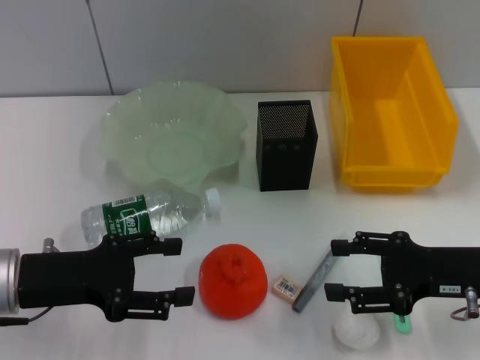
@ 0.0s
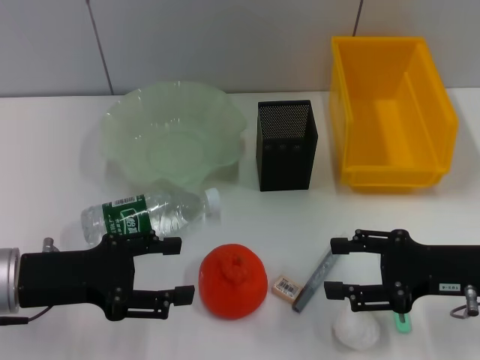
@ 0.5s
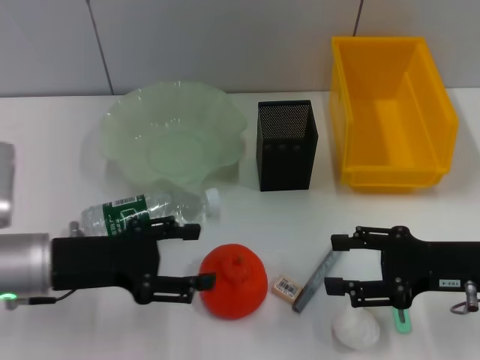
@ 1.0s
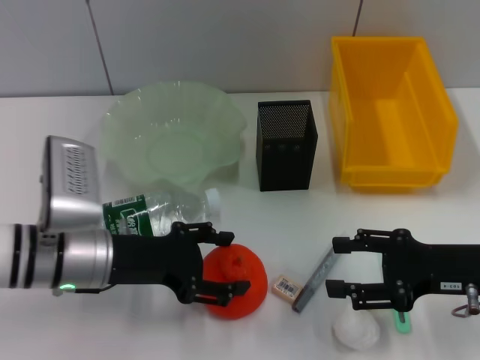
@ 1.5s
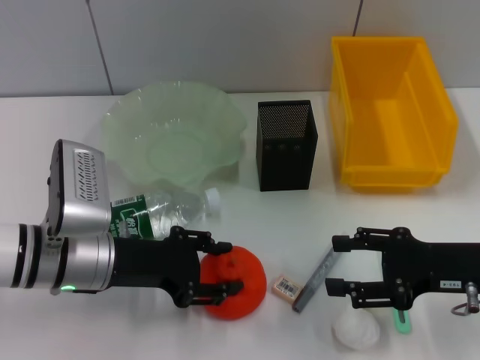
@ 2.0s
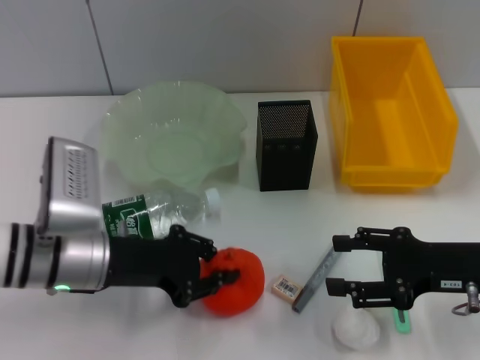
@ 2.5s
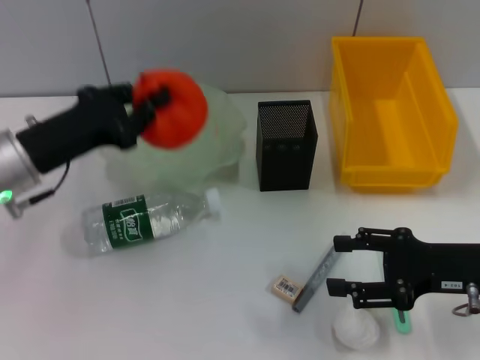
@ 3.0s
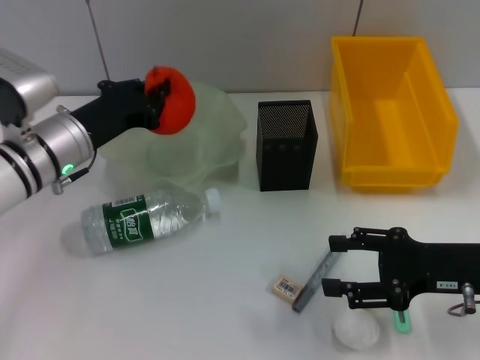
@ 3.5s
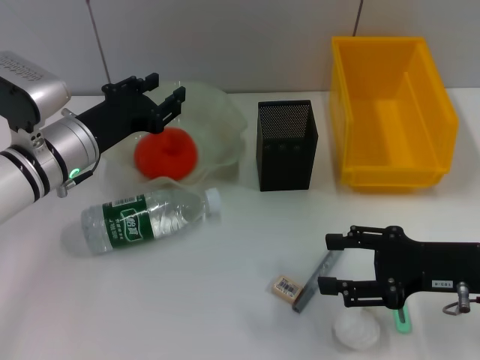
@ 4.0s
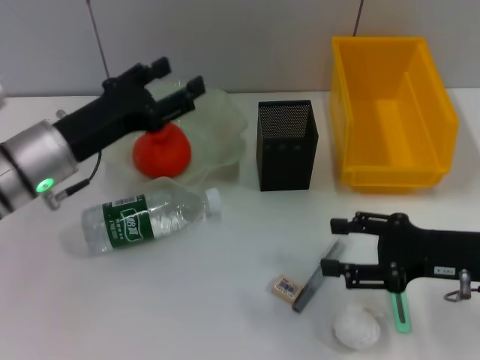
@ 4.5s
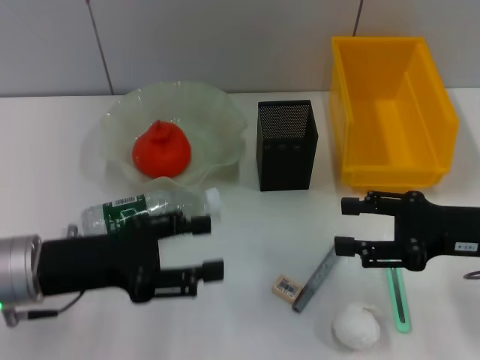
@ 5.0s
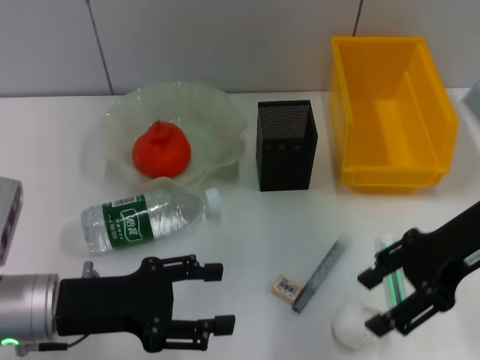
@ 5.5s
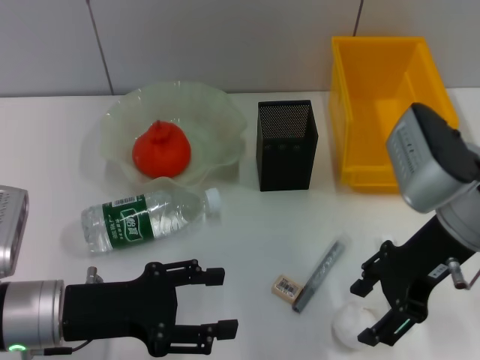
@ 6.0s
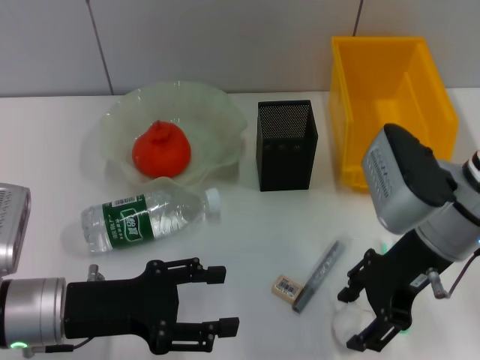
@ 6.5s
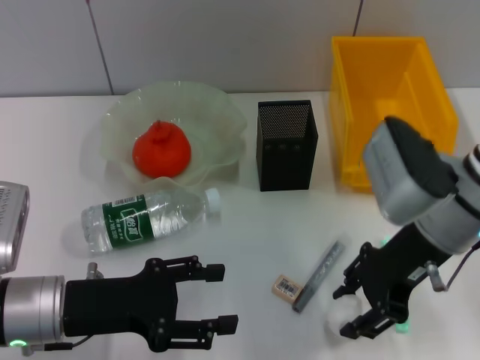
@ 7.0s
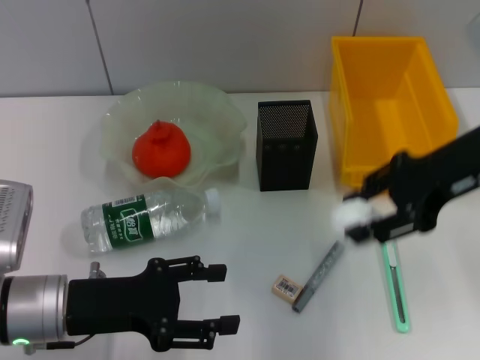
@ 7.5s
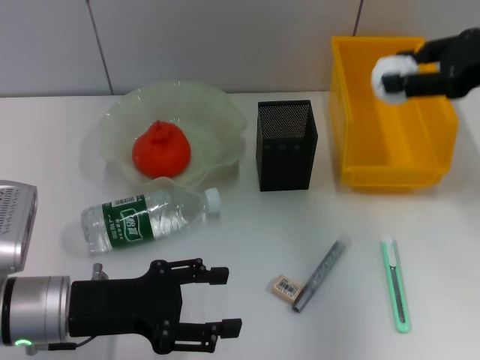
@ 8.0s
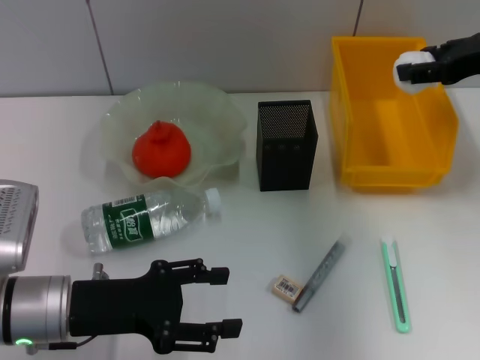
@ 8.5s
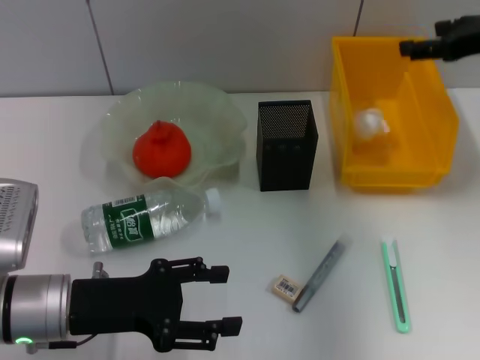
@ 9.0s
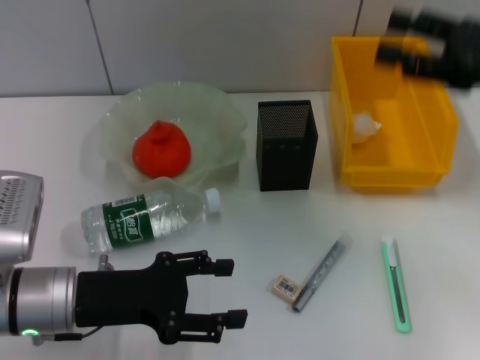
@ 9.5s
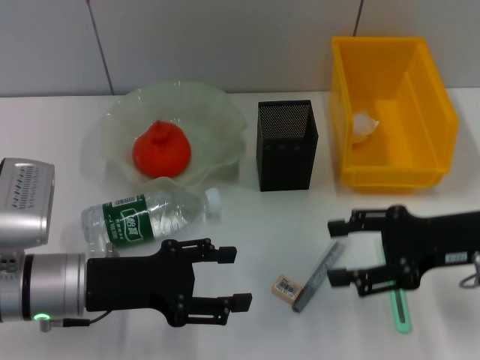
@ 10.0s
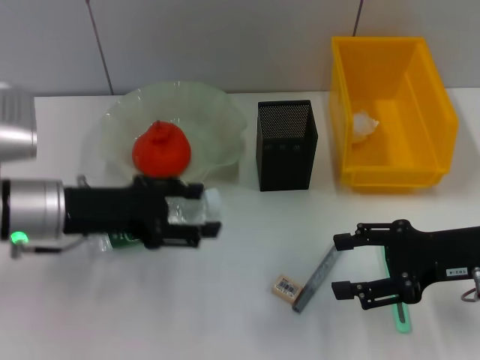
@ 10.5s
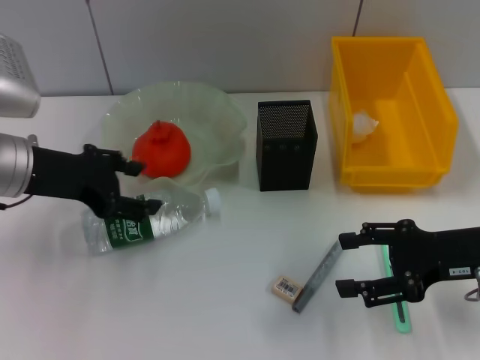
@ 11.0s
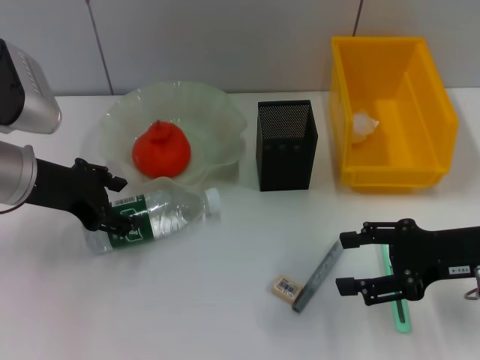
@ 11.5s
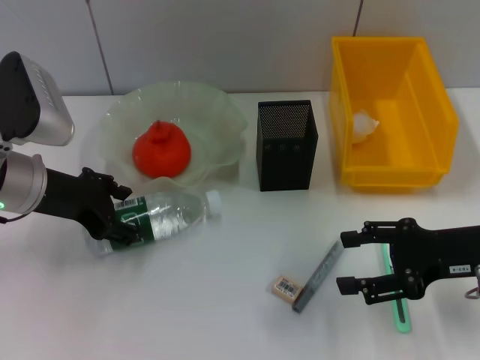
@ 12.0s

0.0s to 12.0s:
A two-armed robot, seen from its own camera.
Step, 0.0s to 2.0s: Grab the orange with the left hand.
Step, 2.5s to 4.0s: Place the orange into the fruit bowl with the left hand.
Step, 4.5s to 6.5s: Grab the paper ball with the right hand.
Step, 7.0s to 8.5s: Place the paper ball into the trash can with the right hand.
0.0s to 2.0s: The left gripper goes roughly 5 cm to the right.
2.0s to 4.0s: The left gripper moves forward, some 10 cm, and closes up.
4.0s to 6.0s: The left gripper shifts about 15 cm backward, and opens. The right gripper goes about 10 cm upward and to the left.
6.0s to 8.0s: The right gripper travels to the right, upward and forward by approximately 15 cm, and closes.
8.0s to 10.0s: The right gripper shifts about 15 cm downward and backward, and opens.
10.0s to 12.0s: The left gripper is displaced forward and upward by approximately 10 cm.

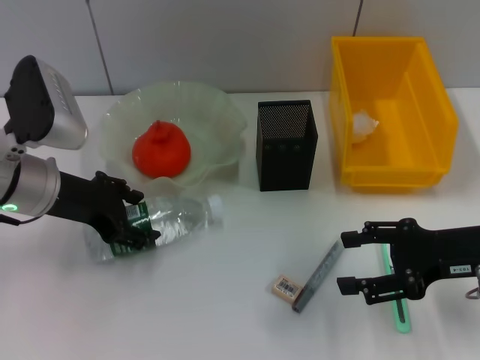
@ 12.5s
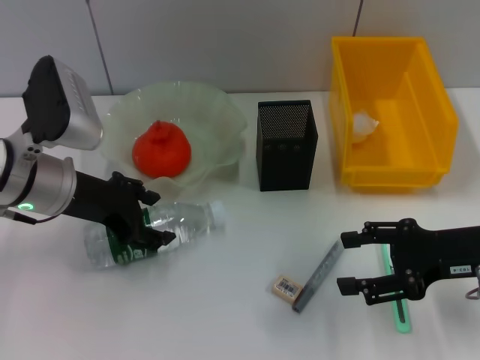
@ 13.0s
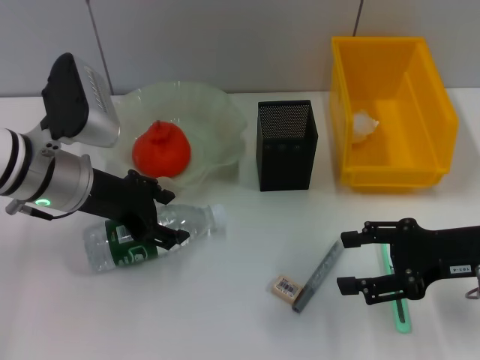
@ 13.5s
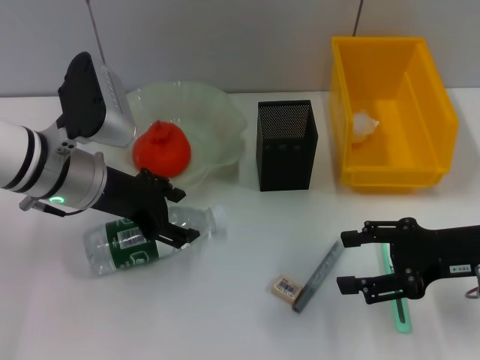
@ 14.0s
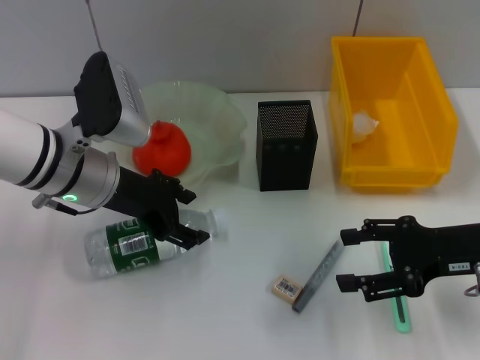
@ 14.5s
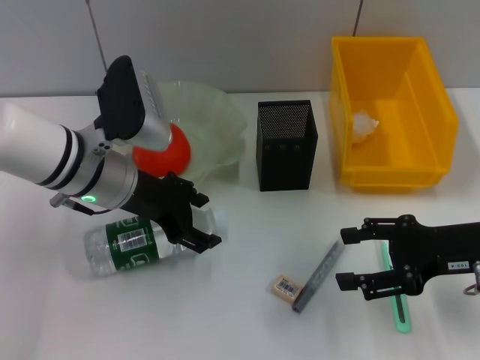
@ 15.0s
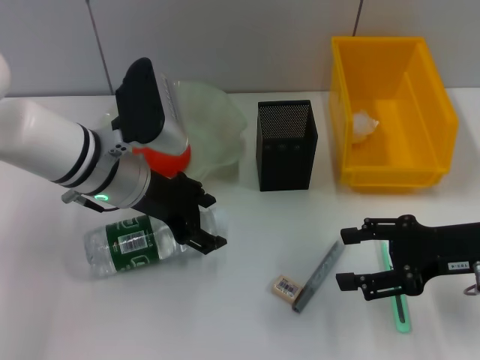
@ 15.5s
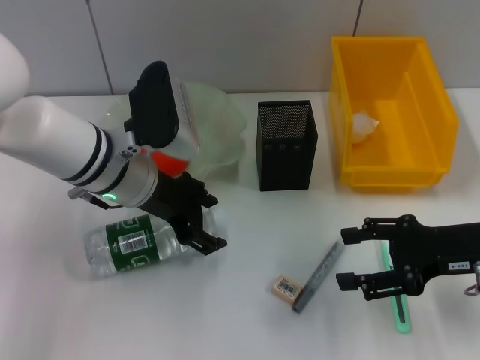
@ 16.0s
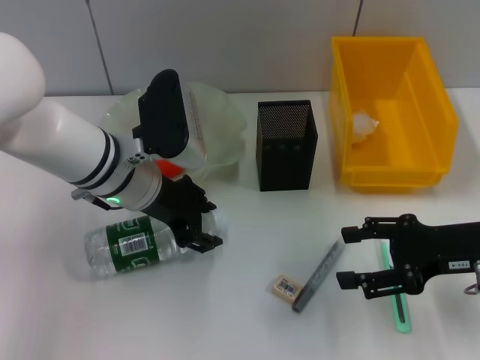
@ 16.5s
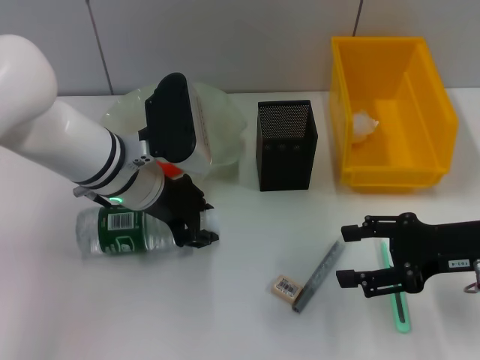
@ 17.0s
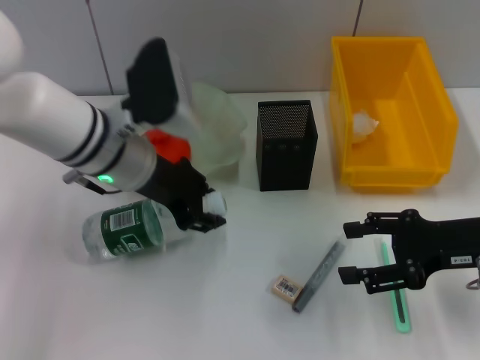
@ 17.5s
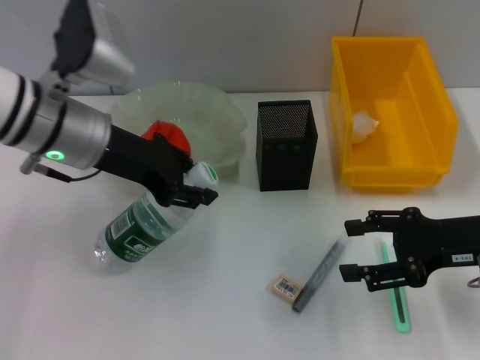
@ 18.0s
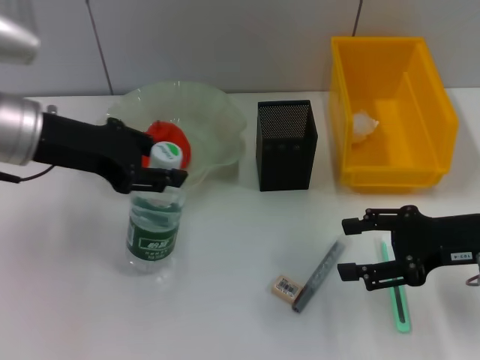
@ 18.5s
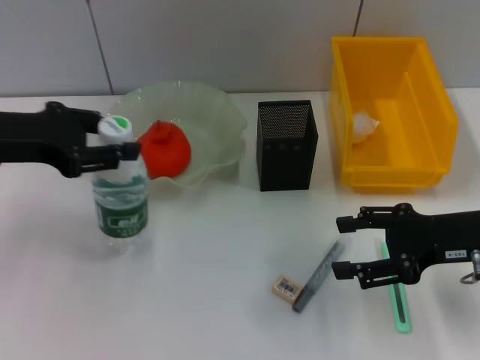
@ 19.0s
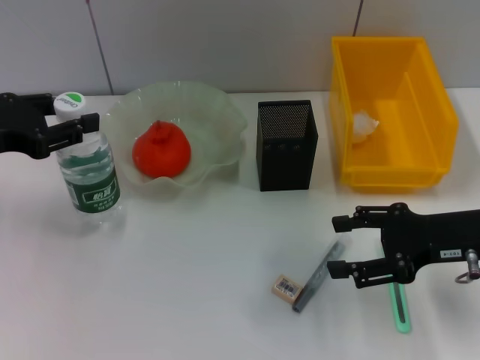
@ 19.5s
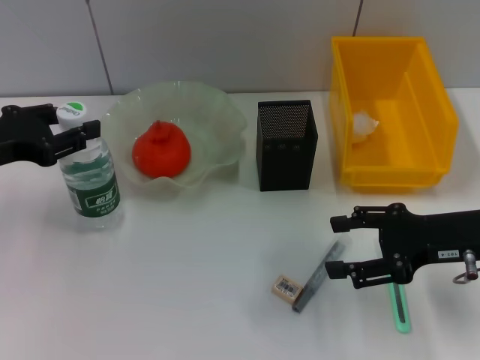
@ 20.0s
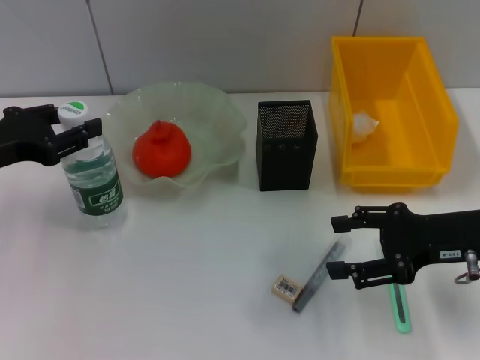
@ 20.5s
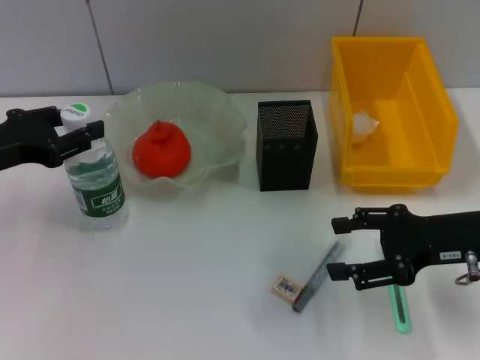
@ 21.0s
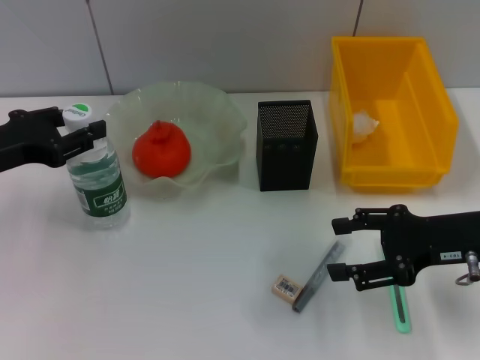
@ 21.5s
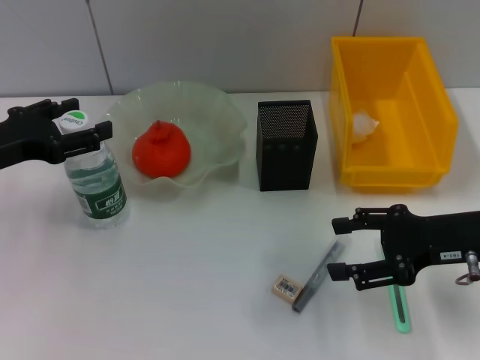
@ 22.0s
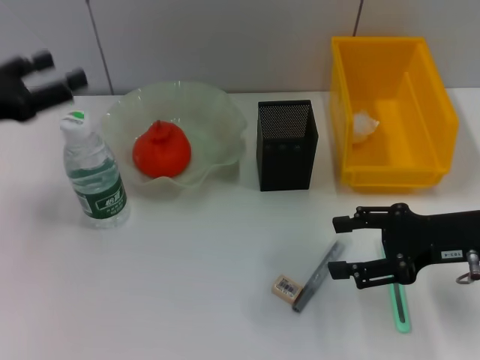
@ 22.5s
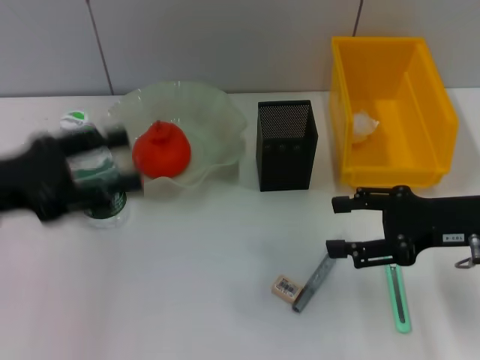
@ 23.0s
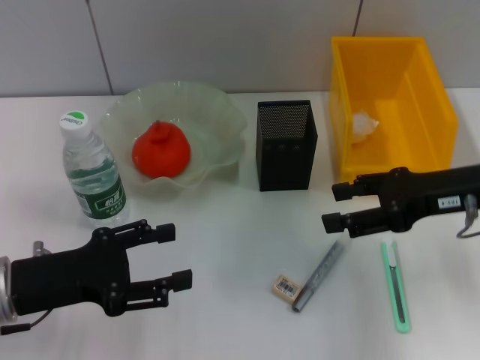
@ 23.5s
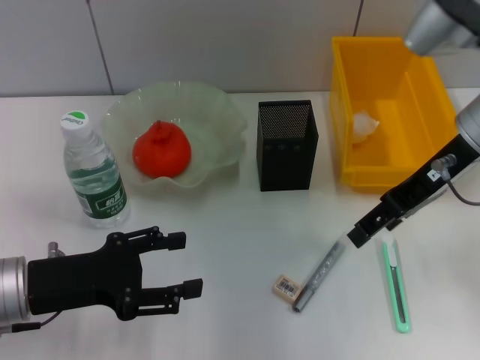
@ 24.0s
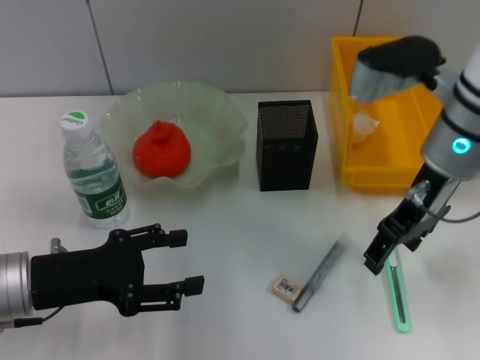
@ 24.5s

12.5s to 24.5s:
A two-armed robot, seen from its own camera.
Step, 12.5s to 17.0s: Grab the water bottle with the left hand.
Step, 17.5s to 22.0s: Place the water bottle on the table with the left hand.
12.5s to 14.5s: The left gripper shifts some 5 cm to the right.
14.5s to 16.5s: The grippers stay close to where they were, moving slightly.
16.5s to 18.5s: The left gripper heads to the left and upward, covering some 10 cm.
18.5s to 20.5s: The left gripper moves to the left and downward, roughly 10 cm.
20.5s to 22.5s: The left gripper opens its fingers.
22.5s to 24.5s: The right gripper travels to the left, upward and forward by roughly 15 cm. The left gripper shifts about 10 cm downward, to the right and backward.

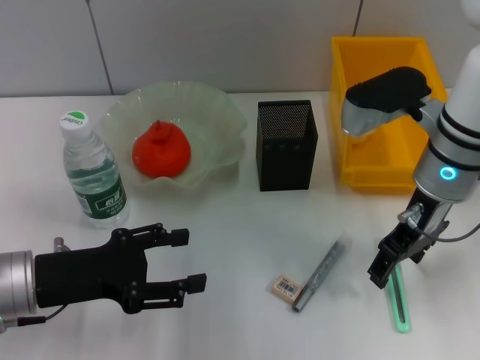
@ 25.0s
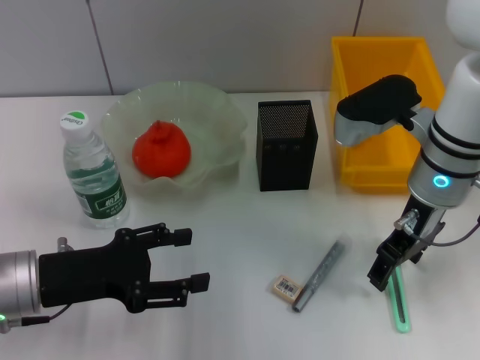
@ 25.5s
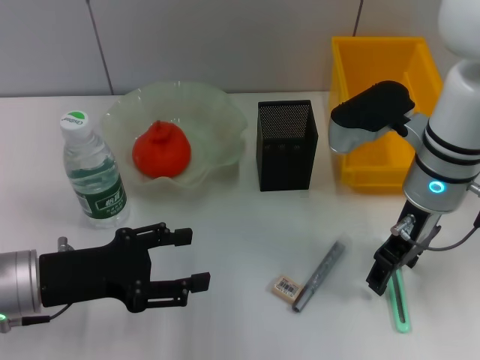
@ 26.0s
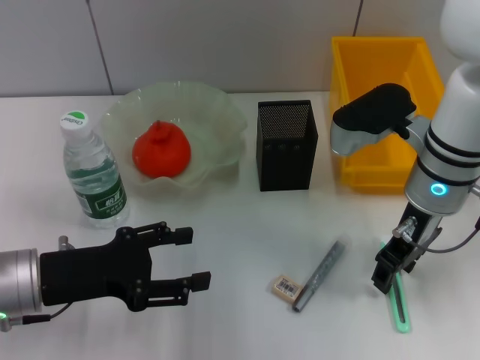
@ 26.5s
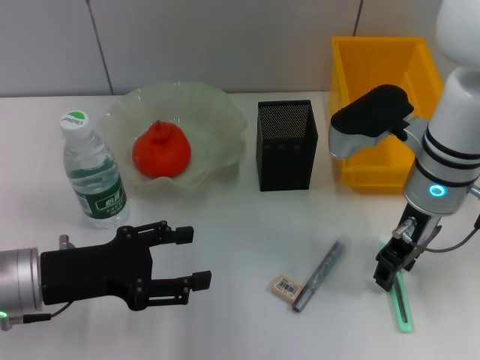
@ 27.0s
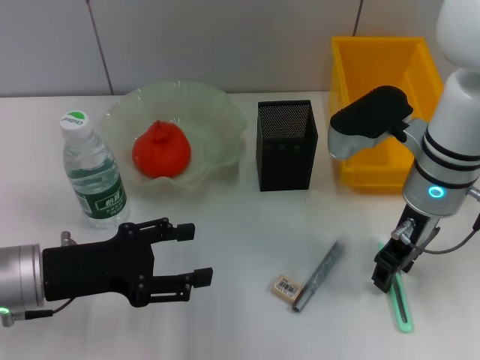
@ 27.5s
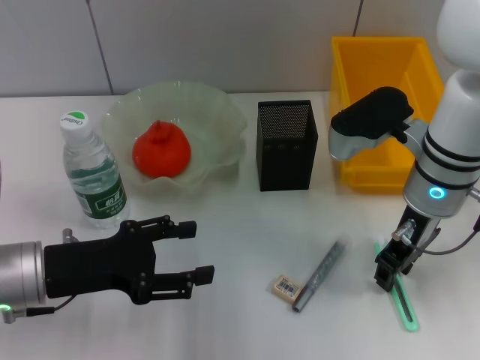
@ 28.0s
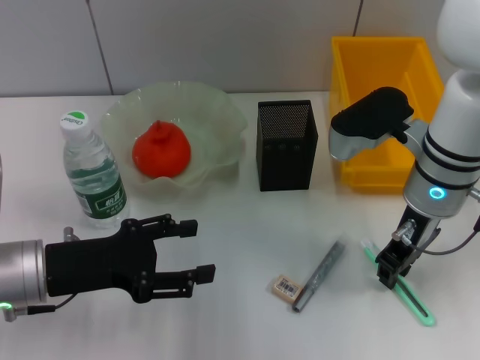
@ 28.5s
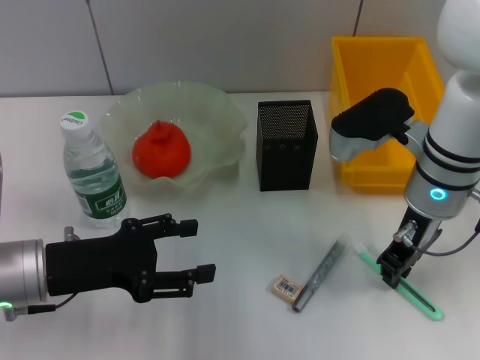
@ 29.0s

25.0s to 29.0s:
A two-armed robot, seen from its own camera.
25.0s to 27.0s: The right gripper closes its fingers.
27.0s to 29.0s: The right gripper closes up.
